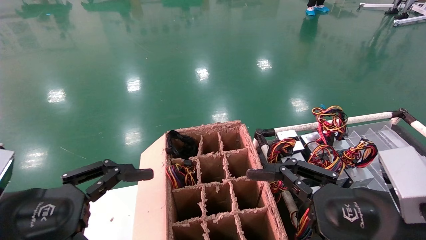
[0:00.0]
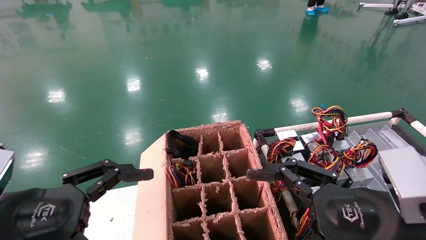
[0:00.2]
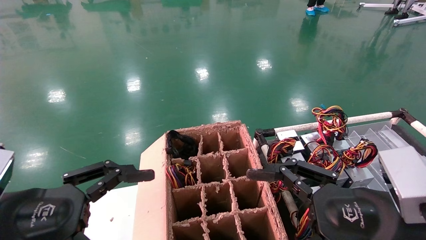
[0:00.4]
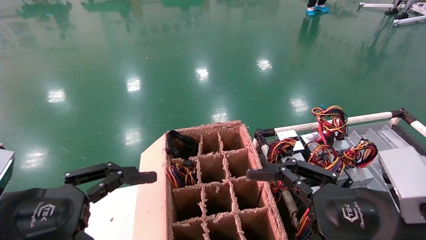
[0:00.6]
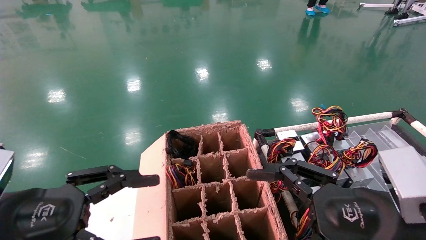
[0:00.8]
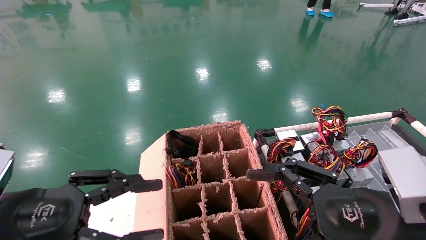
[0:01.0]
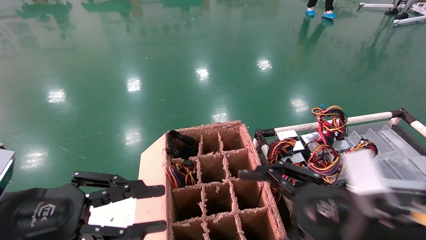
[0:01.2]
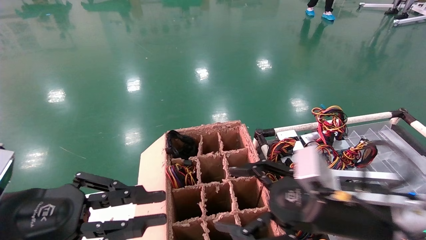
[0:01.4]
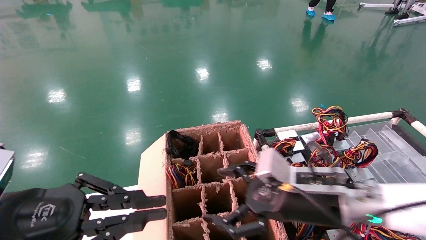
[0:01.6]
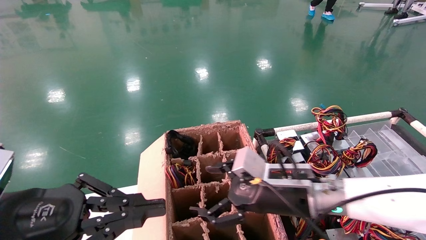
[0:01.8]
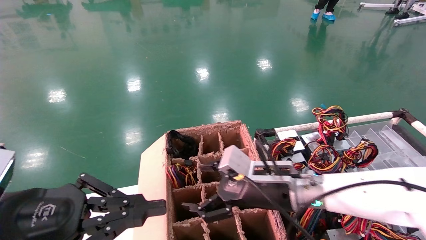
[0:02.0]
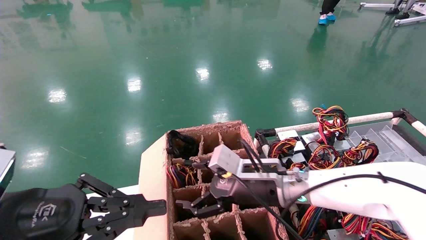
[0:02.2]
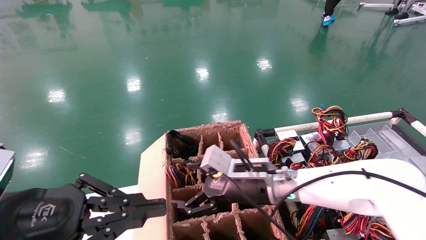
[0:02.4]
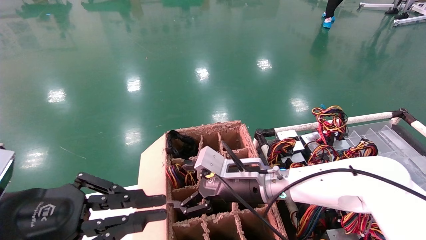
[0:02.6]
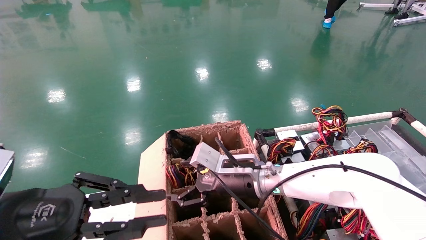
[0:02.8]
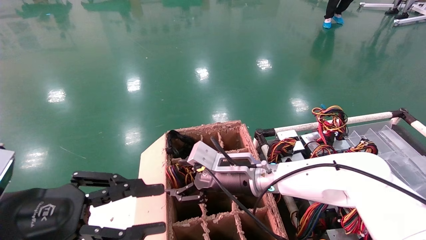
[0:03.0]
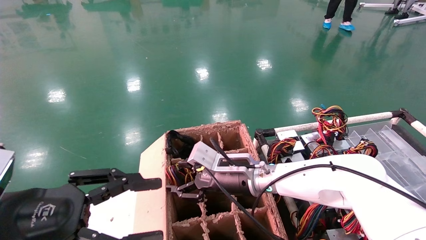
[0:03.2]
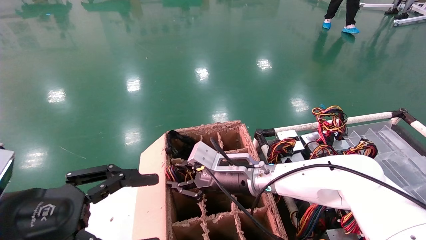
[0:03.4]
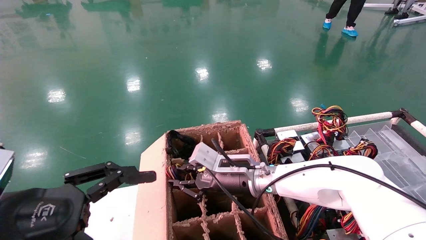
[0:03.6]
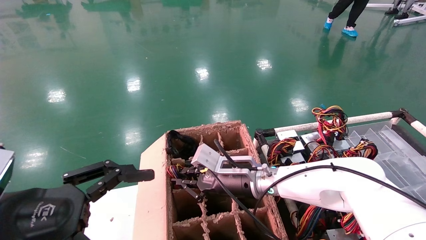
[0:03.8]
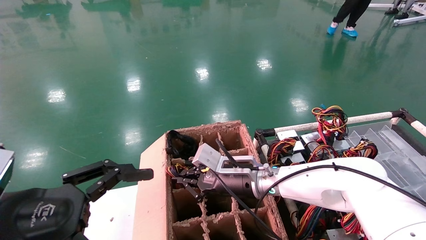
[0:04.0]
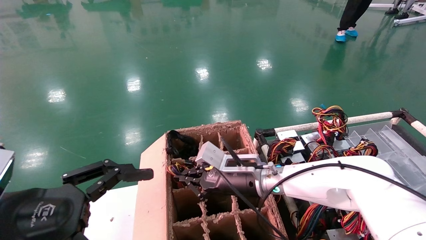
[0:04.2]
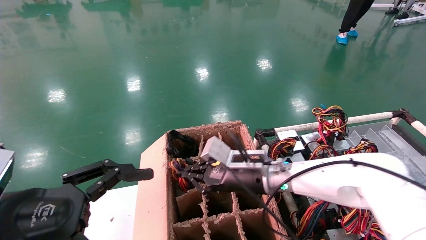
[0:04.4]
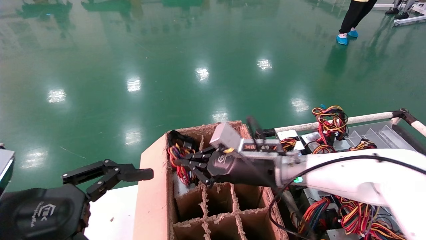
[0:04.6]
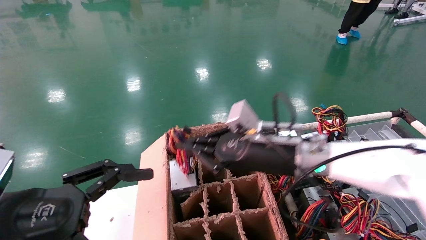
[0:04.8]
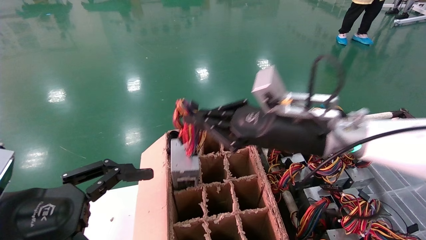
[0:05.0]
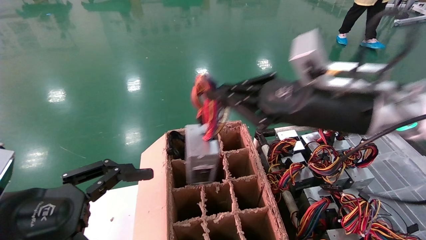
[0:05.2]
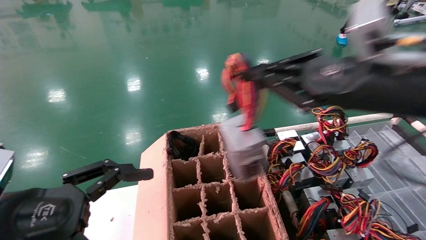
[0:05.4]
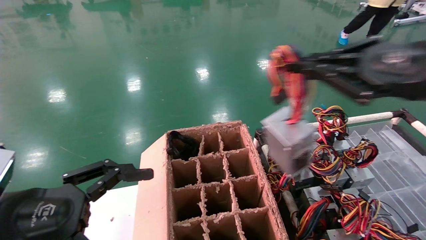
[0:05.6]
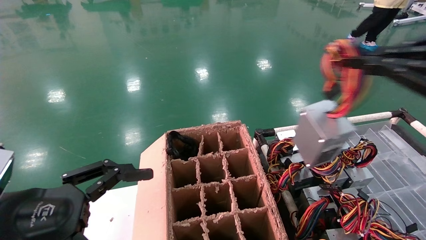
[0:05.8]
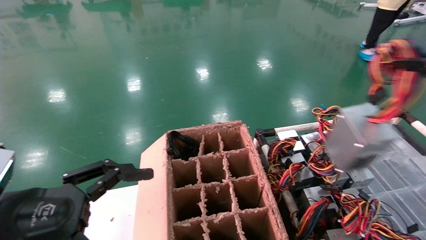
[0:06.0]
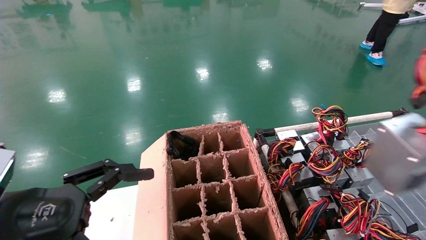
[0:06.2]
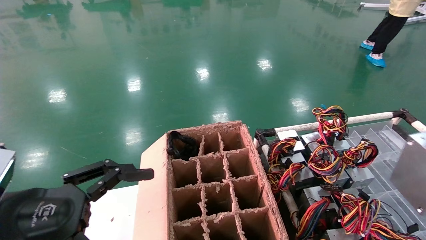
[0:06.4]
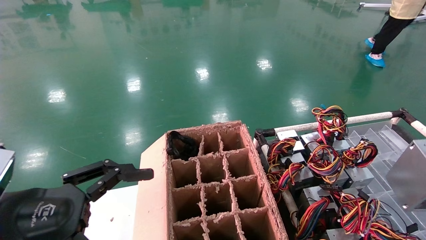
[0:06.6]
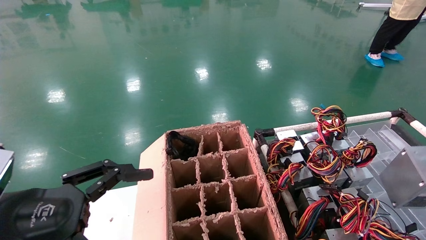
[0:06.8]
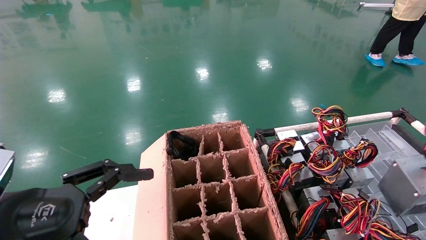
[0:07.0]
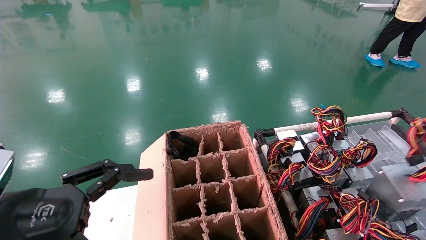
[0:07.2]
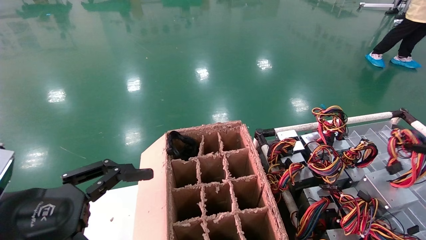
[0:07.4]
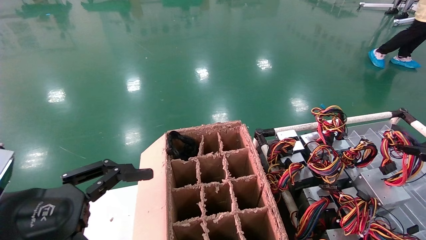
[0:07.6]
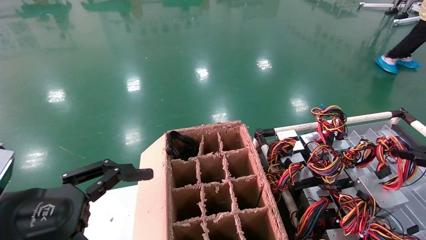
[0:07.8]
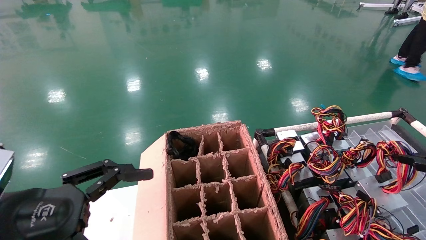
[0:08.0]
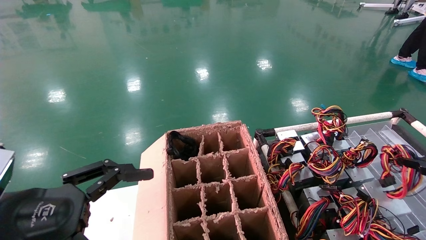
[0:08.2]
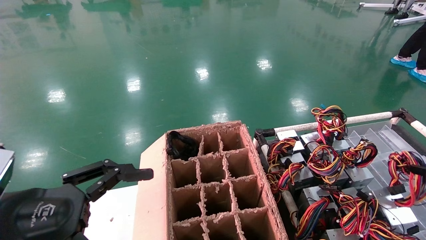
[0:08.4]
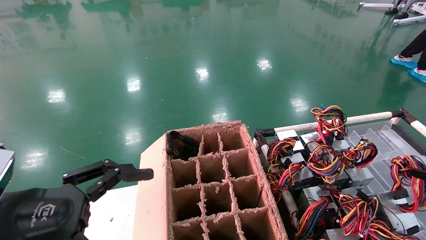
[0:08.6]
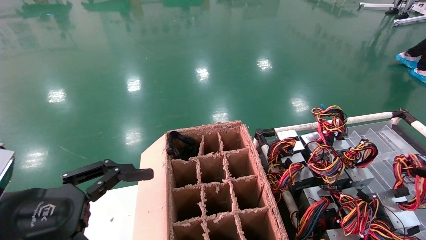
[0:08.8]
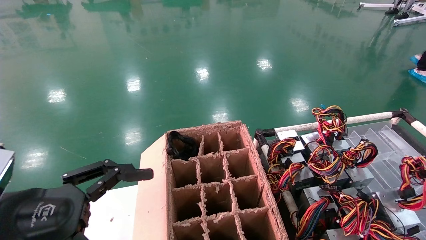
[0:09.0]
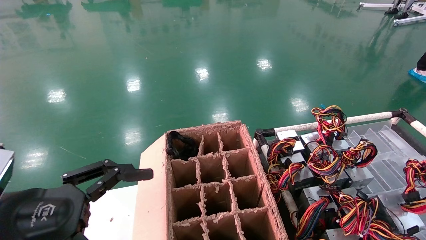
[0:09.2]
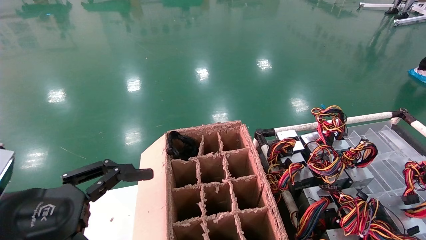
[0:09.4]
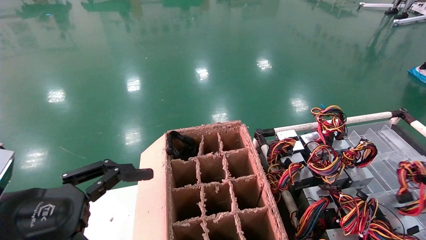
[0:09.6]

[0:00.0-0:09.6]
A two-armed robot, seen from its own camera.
Step, 0:00.8 to 0:04.2: Grab and lift the power supply from the large box.
0:00.0 to 0:01.6: The left gripper closes up; the right gripper travels forward and to the left by approximately 15 cm.
0:01.6 to 0:03.2: The right gripper heads forward and to the left, covering approximately 15 cm.
0:03.2 to 0:04.8: The right gripper travels upward, to the right and backward by approximately 10 cm, and closes. The left gripper opens its fingers.
0:04.8 to 0:06.4: The right gripper goes approximately 40 cm to the right and backward.
0:06.4 to 0:08.0: The right gripper is displaced downward and forward by about 15 cm.
0:08.0 to 0:09.6: The right gripper shifts by roughly 5 cm.

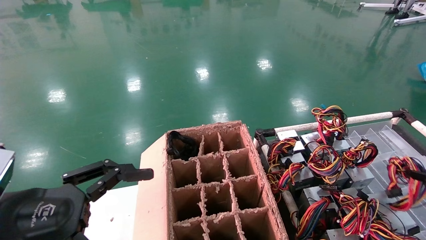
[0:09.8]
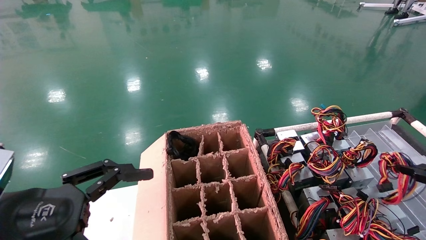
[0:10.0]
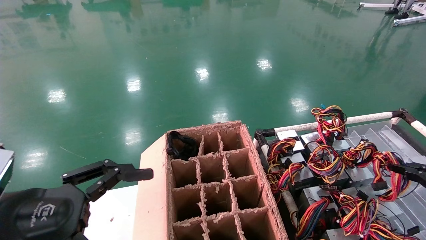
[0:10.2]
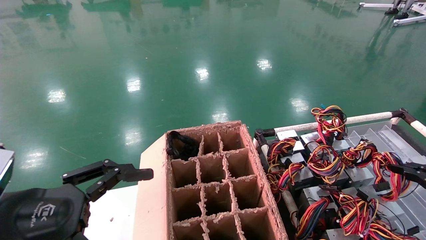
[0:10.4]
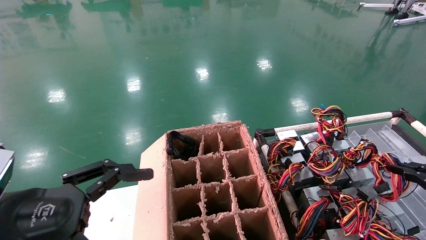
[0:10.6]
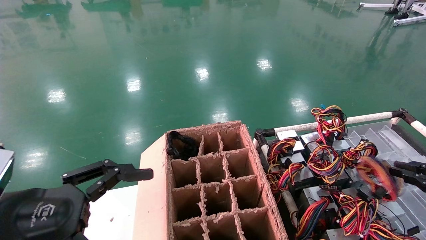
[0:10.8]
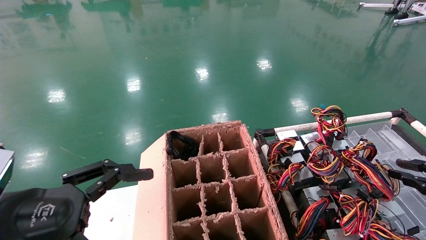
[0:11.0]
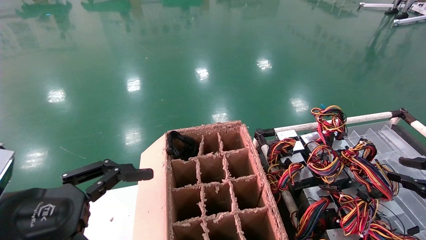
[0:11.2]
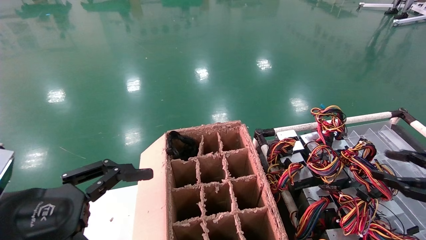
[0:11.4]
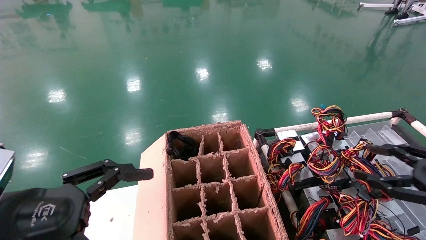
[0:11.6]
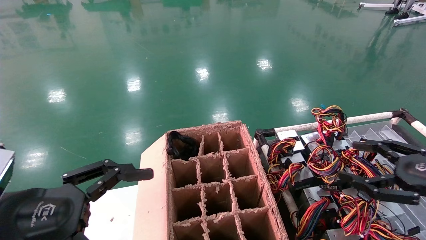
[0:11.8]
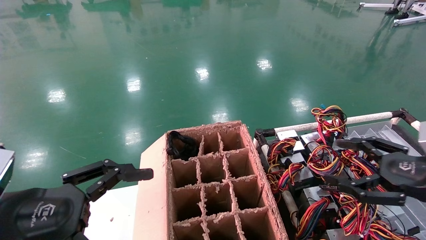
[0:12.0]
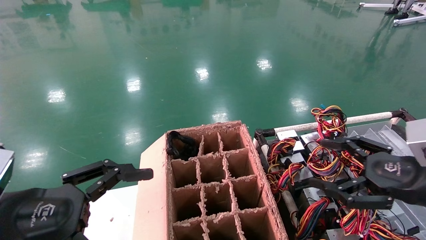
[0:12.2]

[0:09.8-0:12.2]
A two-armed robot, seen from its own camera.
0:09.8 to 0:11.0: The grippers make only small movements.
0:11.0 to 0:12.2: The right gripper heads to the left, covering some 15 cm, and opens its fingers.
